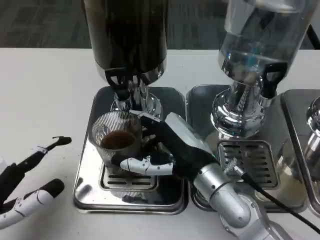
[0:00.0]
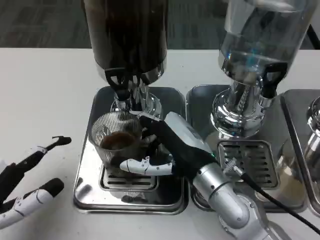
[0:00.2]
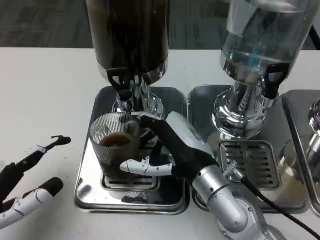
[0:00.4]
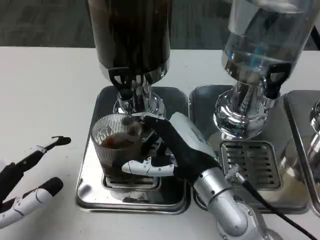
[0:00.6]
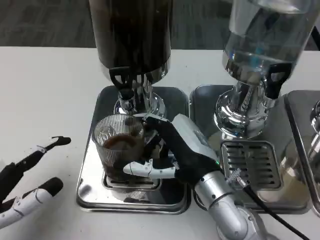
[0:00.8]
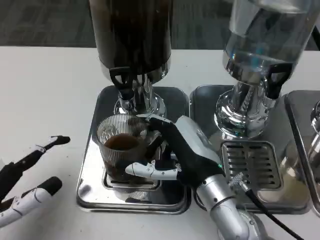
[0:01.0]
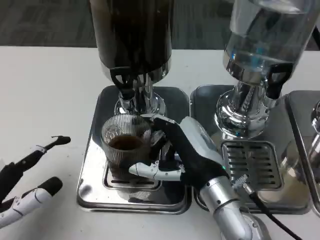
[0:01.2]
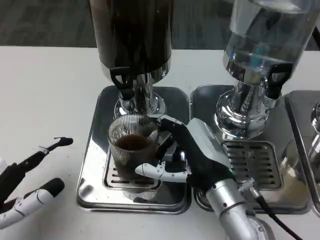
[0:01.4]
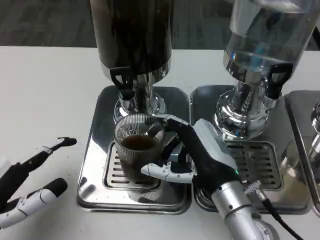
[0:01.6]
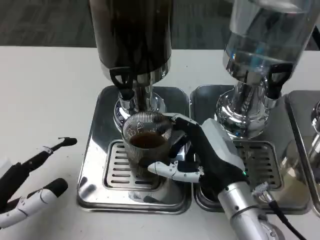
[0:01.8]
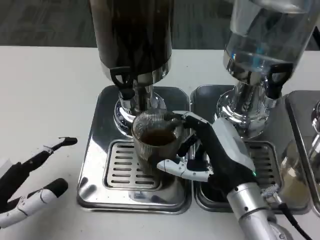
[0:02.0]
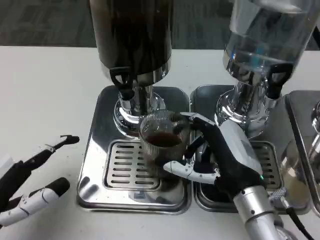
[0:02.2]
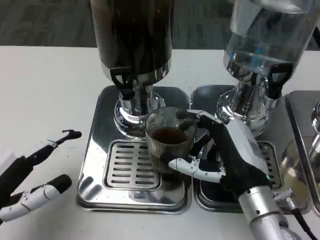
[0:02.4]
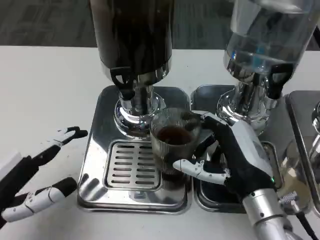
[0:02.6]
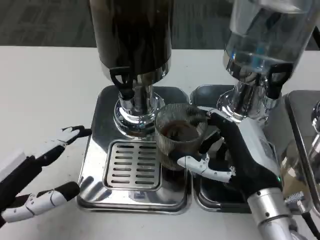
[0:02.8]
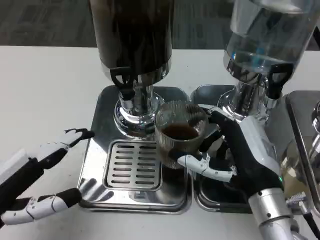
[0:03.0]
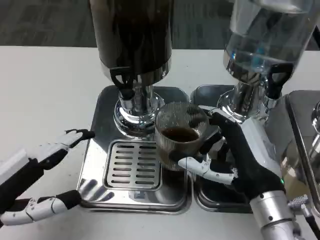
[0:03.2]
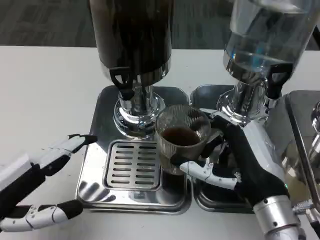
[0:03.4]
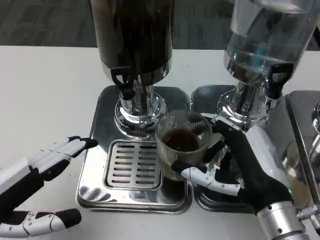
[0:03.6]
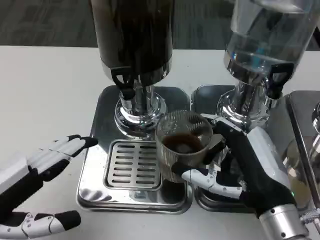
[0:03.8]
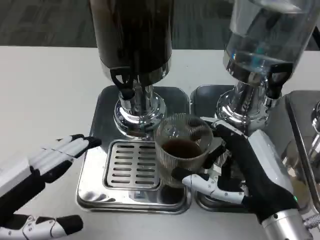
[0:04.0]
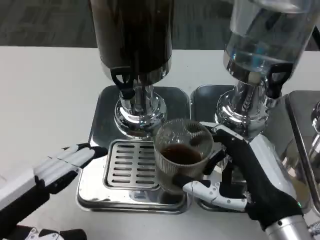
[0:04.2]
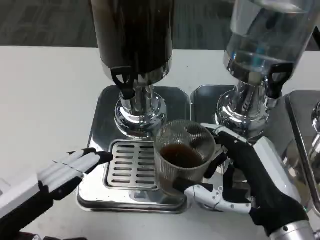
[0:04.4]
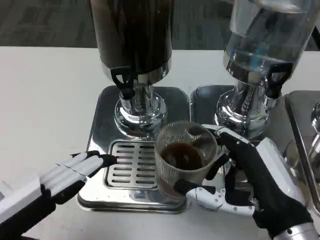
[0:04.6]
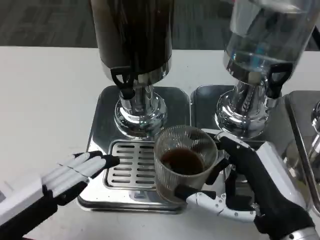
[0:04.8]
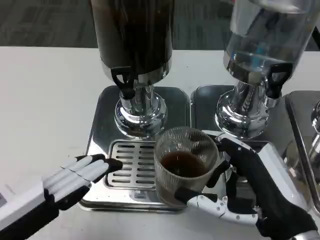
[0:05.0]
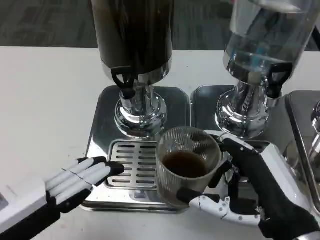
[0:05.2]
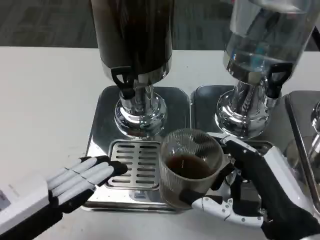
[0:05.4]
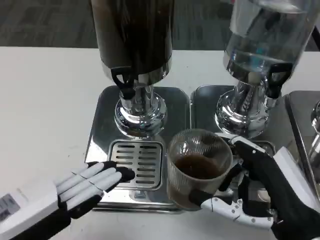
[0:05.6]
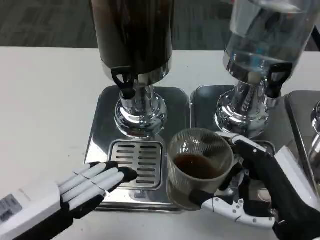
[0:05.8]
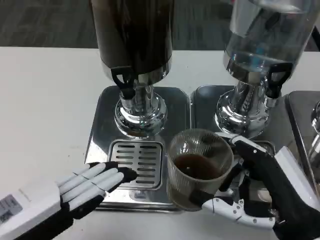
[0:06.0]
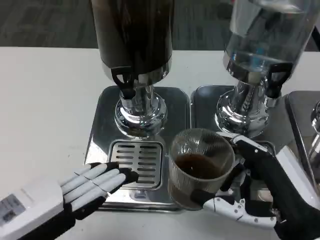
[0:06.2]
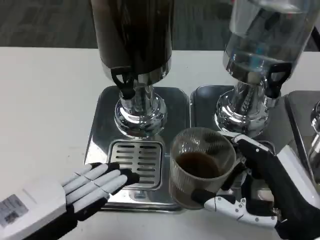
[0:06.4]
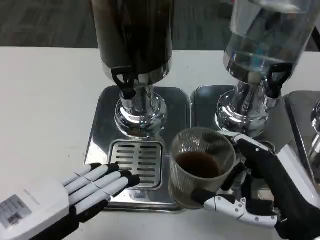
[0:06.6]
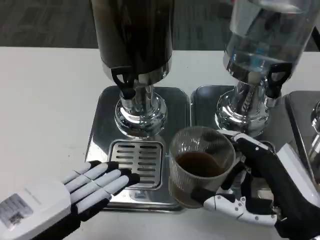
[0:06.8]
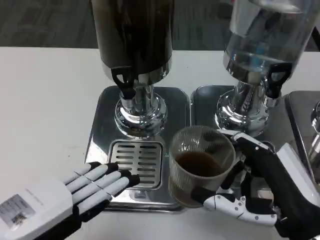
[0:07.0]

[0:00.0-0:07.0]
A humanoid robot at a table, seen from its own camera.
Task of the whole recording: Grasp the cup under the faucet to collect the drink, then remove the cup.
0:02.8 to 0:04.2: The right hand shifts about 5 cm backward.
0:05.6 to 0:07.0: The hands make only small movements.

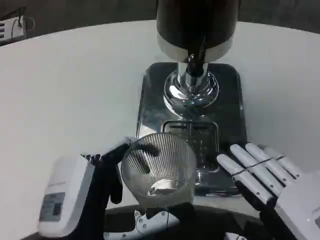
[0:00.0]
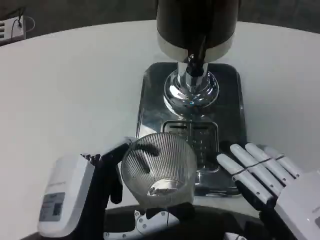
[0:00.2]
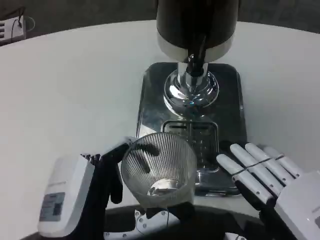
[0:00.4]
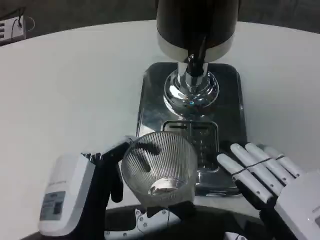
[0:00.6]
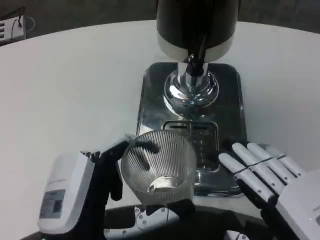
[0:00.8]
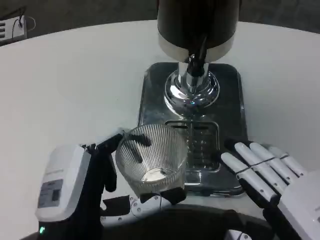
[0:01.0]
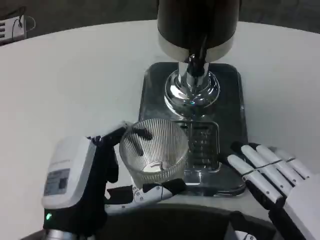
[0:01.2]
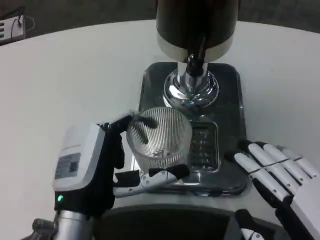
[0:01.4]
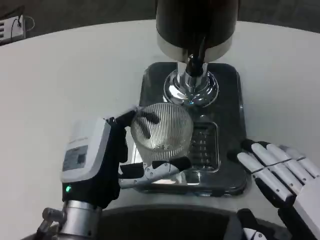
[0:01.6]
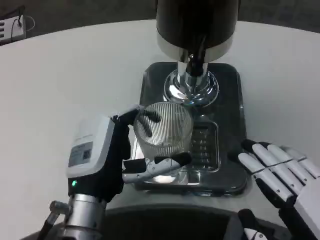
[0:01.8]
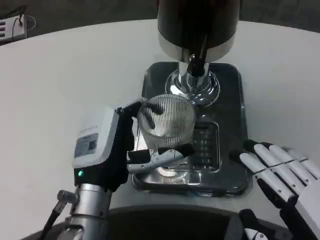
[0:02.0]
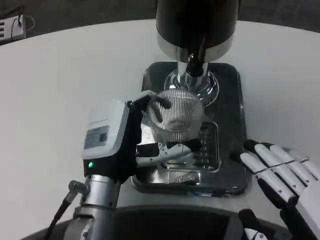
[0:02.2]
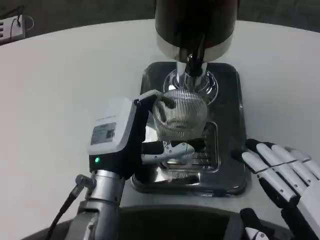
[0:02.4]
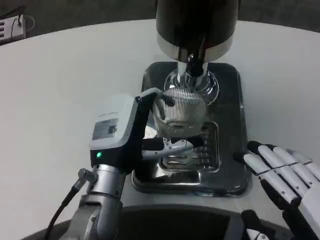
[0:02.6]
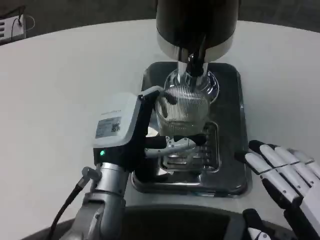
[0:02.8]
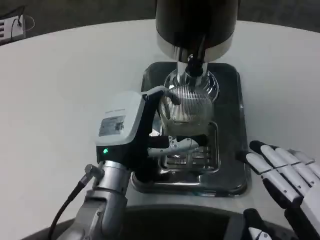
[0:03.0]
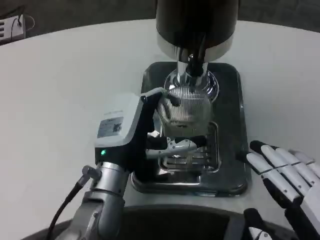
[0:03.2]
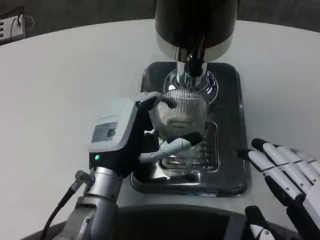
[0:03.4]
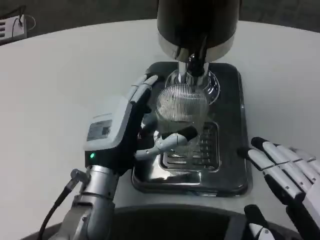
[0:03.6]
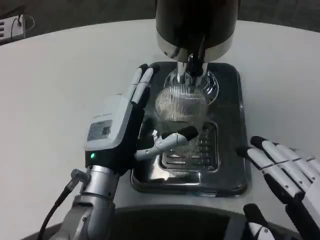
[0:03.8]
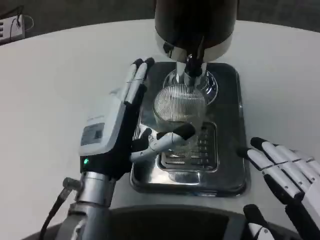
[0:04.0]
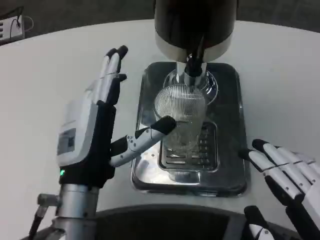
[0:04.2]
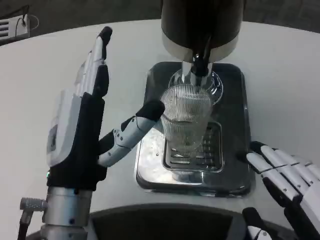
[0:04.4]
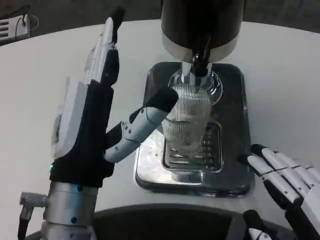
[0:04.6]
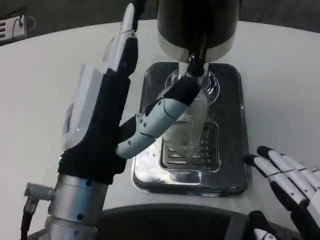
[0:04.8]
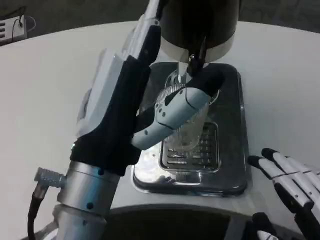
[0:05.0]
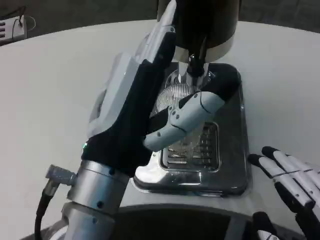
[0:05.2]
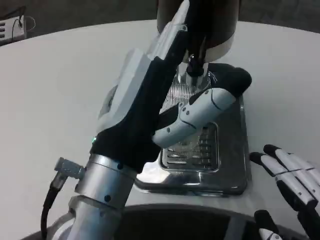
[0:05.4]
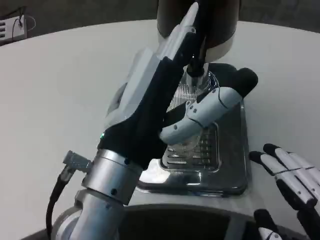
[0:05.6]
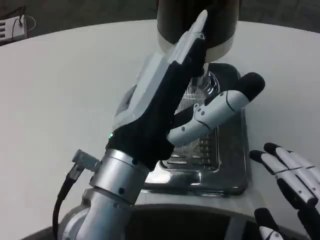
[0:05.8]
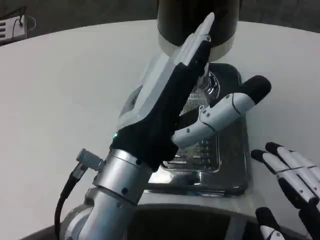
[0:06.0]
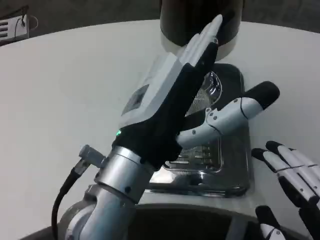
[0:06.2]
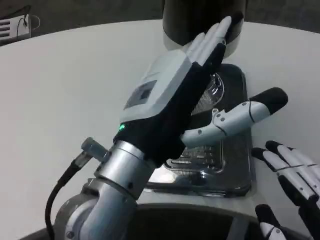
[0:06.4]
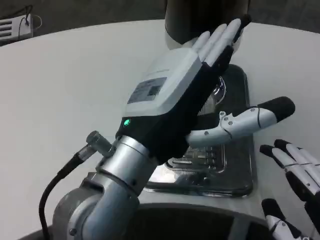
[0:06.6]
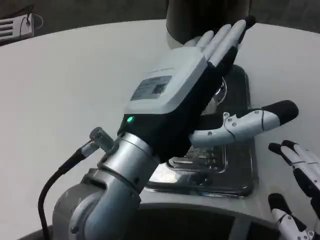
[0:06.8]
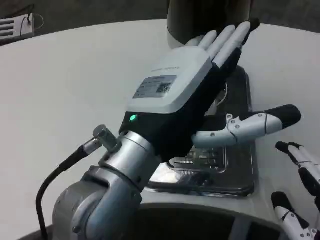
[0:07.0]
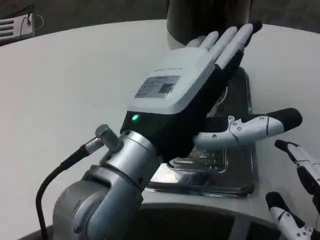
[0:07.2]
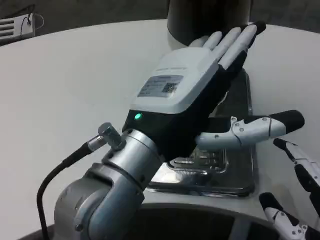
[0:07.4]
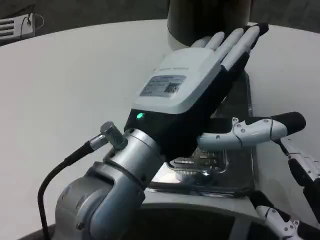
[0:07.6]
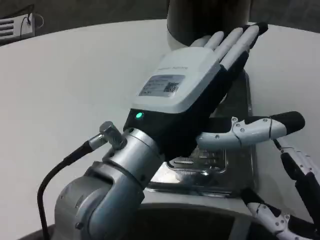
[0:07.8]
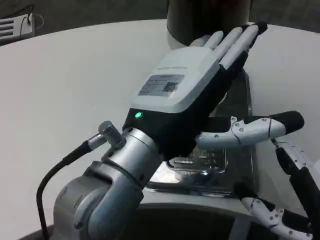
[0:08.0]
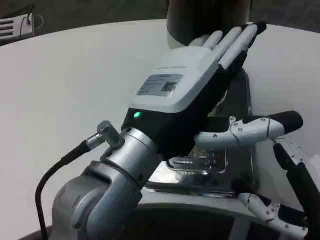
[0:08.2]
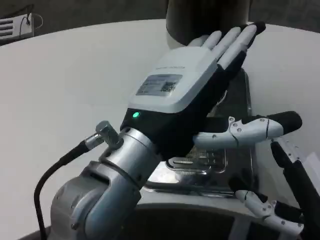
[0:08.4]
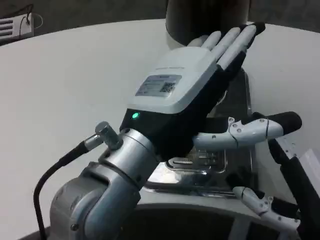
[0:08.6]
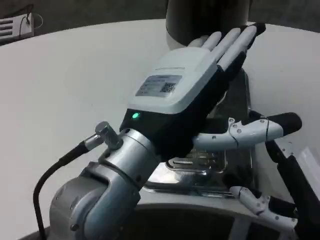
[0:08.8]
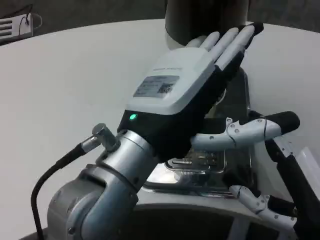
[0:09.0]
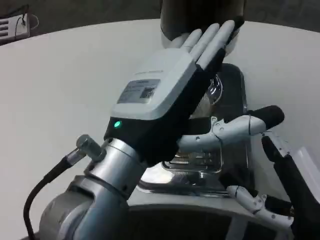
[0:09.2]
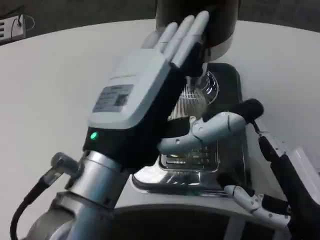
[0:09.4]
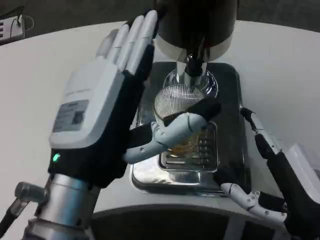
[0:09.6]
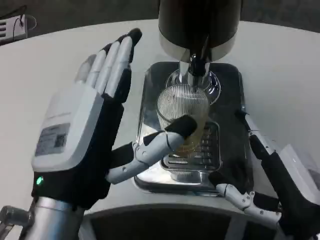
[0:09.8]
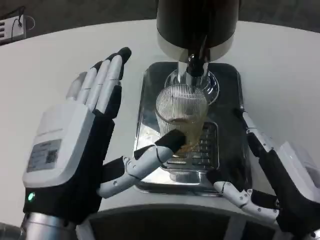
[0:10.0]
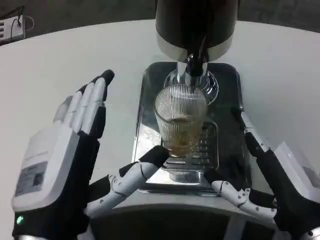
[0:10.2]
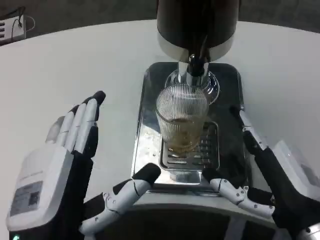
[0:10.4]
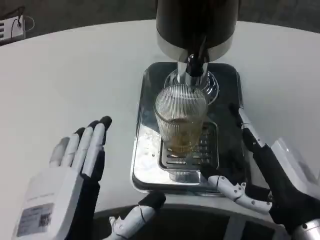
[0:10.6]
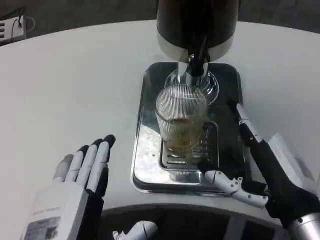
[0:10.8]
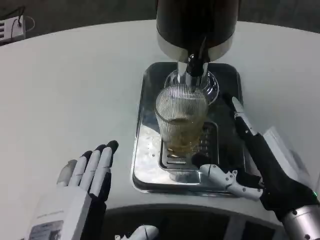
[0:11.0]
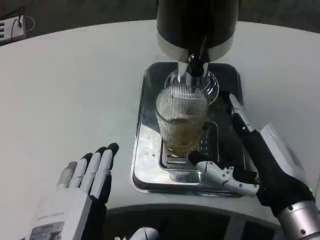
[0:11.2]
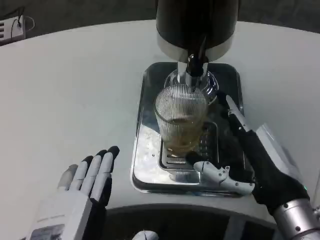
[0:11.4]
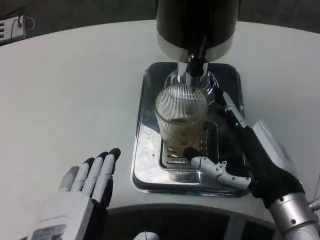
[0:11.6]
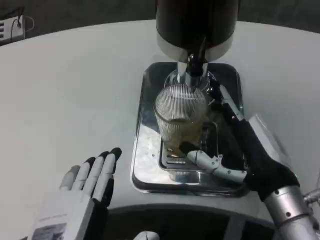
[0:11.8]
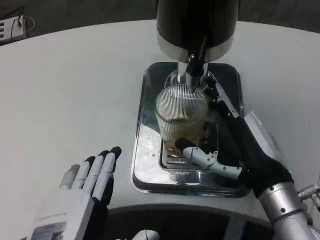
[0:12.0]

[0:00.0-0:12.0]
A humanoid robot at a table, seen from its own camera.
Task of the whole recording: Grasp the cup under the faucet to collect the drink, then remove the cup.
0:00.0 to 0:01.6: The left hand travels forward by roughly 10 cm.
0:01.6 to 0:03.0: The left hand moves forward, some 5 cm.
0:03.0 to 0:04.4: The left hand moves backward, some 10 cm.
0:04.4 to 0:06.0: The left hand heads upward, covering approximately 5 cm.
0:09.0 to 0:10.4: The left hand heads downward, to the left and backward, covering approximately 15 cm.
0:10.4 to 0:12.0: The right hand goes approximately 5 cm forward.

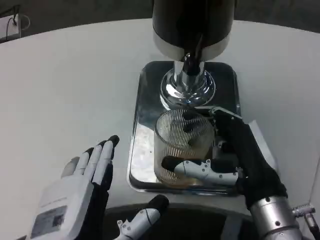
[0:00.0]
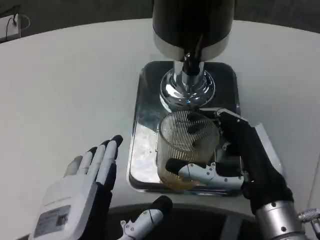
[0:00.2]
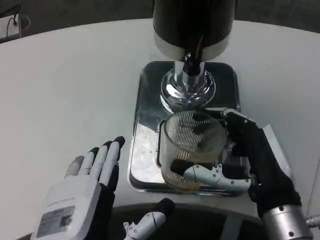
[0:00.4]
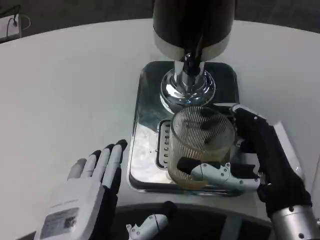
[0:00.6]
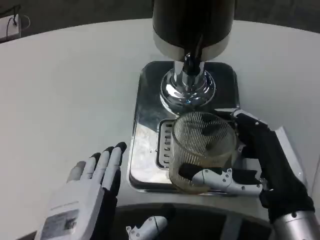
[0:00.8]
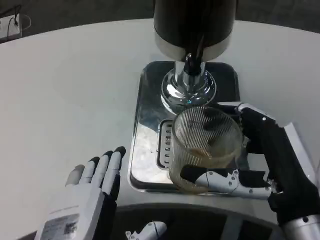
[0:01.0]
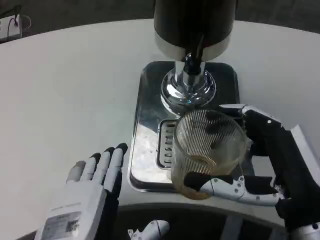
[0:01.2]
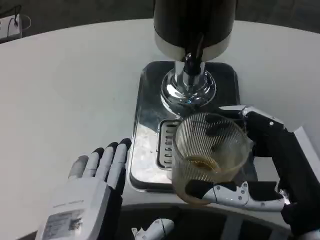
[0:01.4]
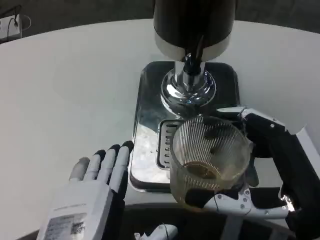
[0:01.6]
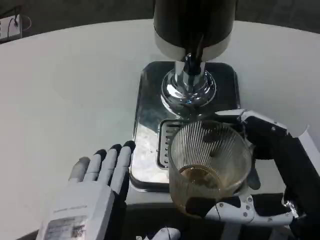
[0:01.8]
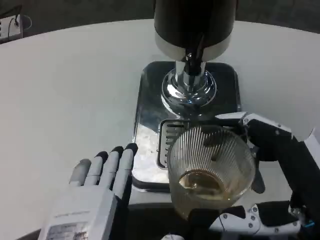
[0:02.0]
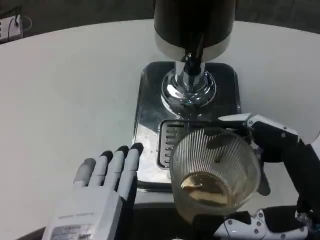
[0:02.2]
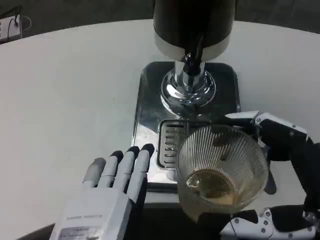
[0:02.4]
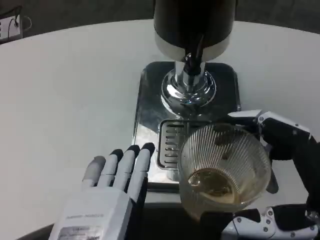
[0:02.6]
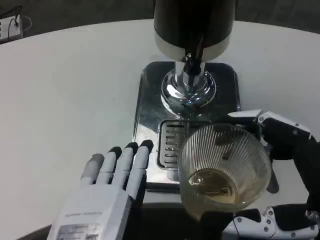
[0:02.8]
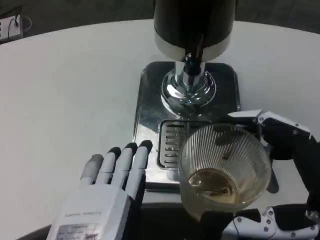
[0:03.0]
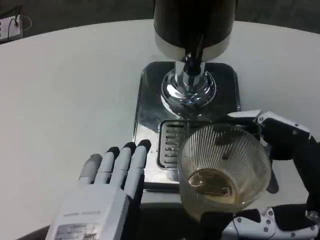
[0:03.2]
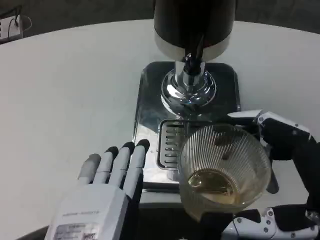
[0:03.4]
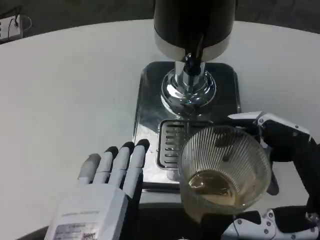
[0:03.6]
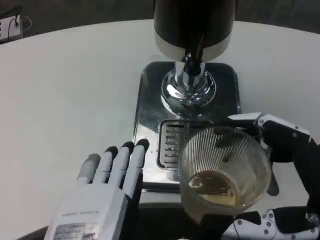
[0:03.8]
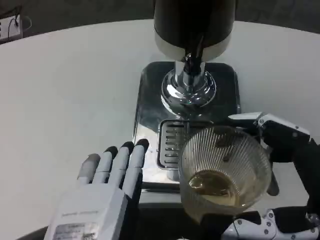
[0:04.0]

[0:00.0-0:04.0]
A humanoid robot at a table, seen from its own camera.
Task of the whole recording: Grasp the cup under the faucet to collect the drink, then remove the cup.
0:00.0 to 0:01.4: The right hand shifts about 5 cm backward.
0:02.6 to 0:04.0: Both hands stay put.
